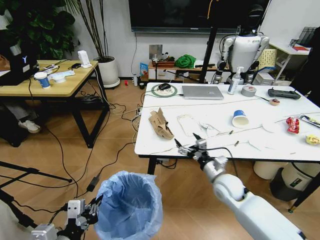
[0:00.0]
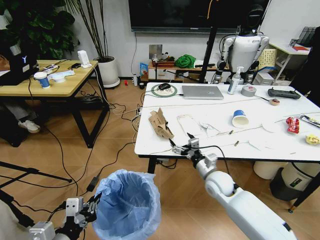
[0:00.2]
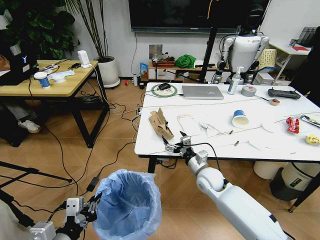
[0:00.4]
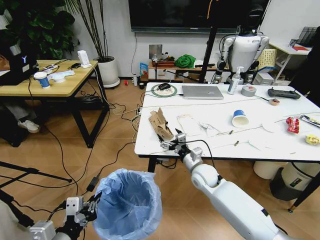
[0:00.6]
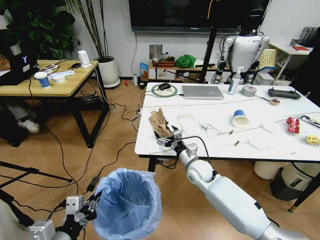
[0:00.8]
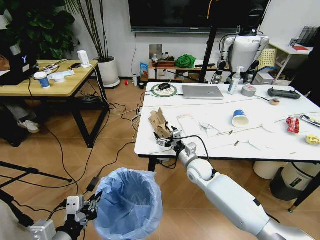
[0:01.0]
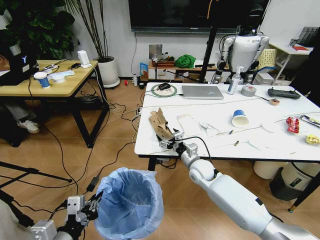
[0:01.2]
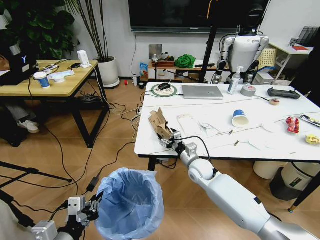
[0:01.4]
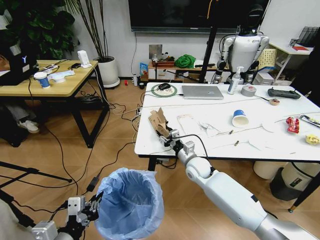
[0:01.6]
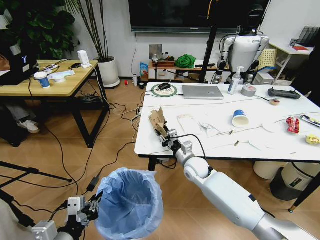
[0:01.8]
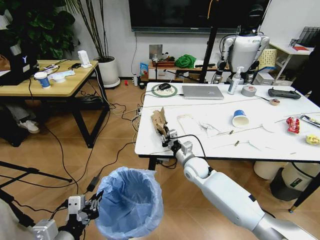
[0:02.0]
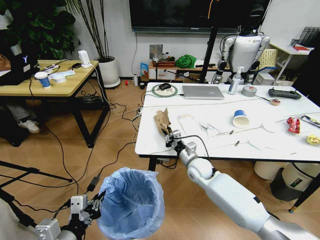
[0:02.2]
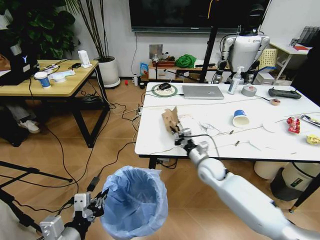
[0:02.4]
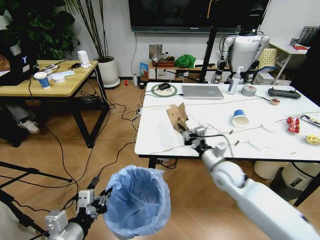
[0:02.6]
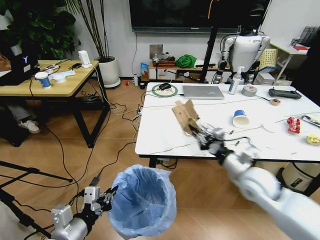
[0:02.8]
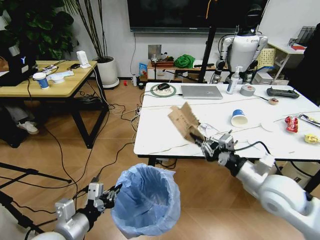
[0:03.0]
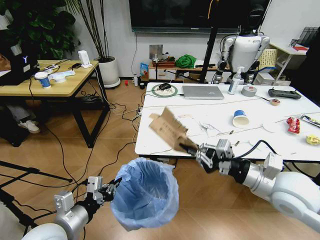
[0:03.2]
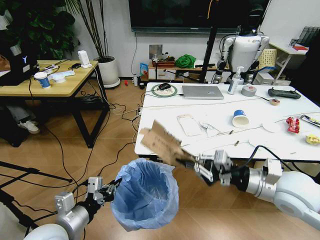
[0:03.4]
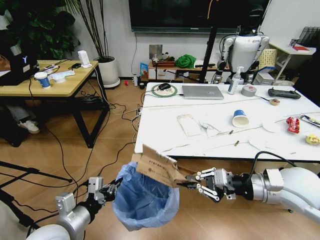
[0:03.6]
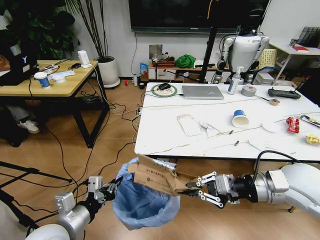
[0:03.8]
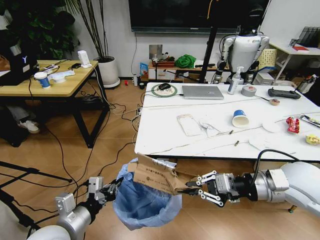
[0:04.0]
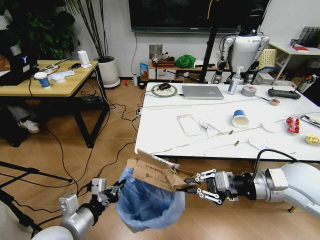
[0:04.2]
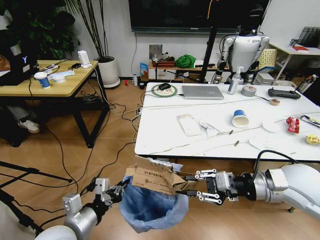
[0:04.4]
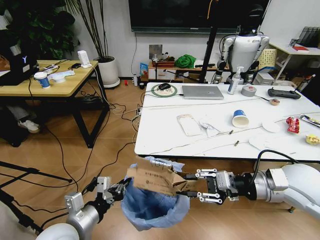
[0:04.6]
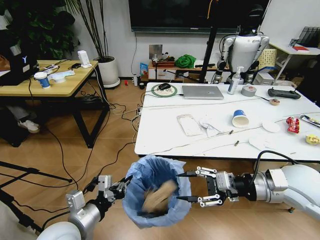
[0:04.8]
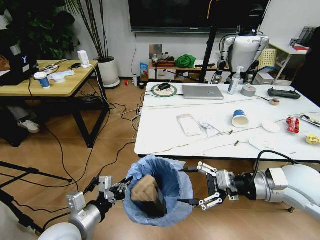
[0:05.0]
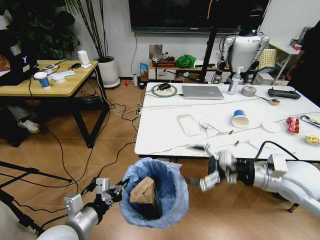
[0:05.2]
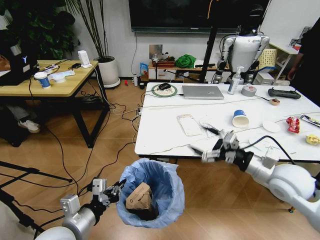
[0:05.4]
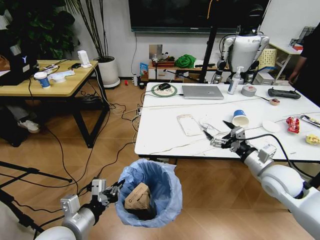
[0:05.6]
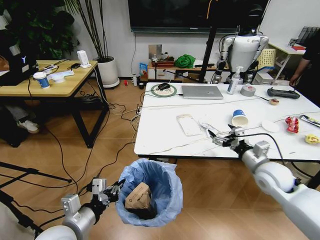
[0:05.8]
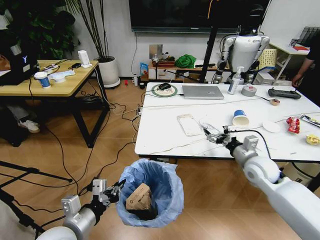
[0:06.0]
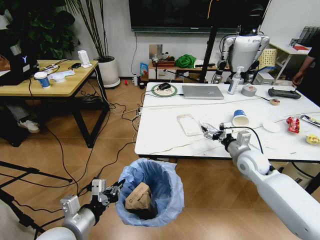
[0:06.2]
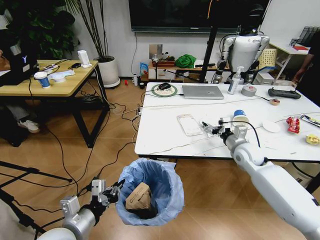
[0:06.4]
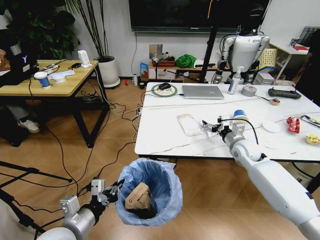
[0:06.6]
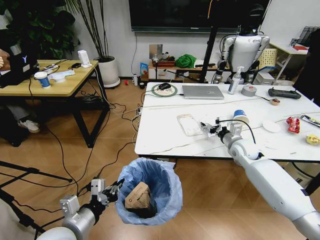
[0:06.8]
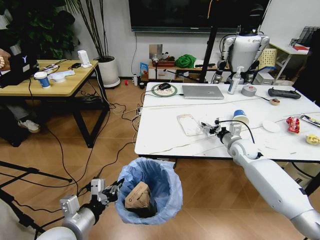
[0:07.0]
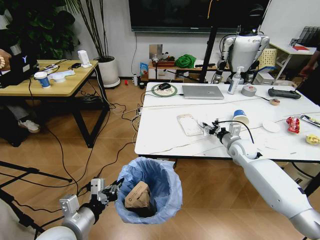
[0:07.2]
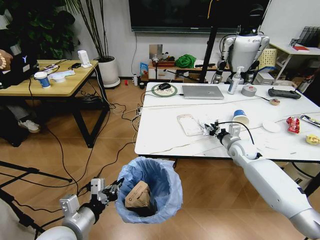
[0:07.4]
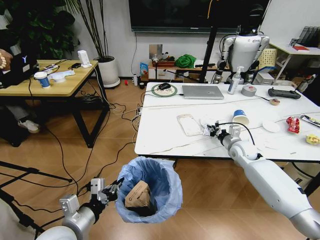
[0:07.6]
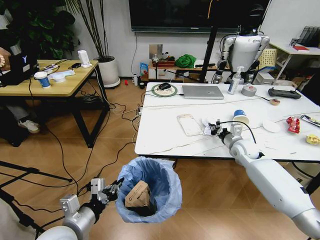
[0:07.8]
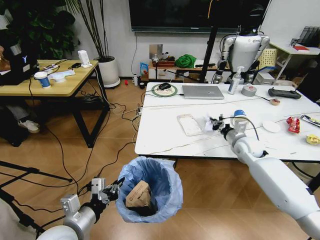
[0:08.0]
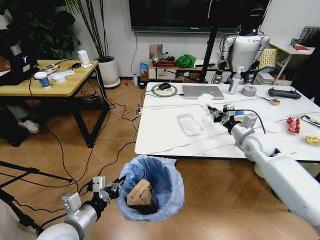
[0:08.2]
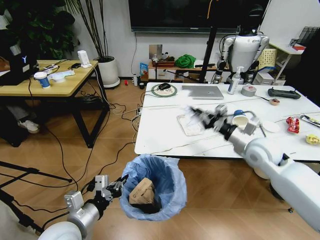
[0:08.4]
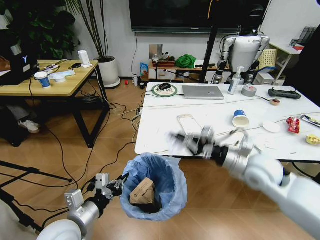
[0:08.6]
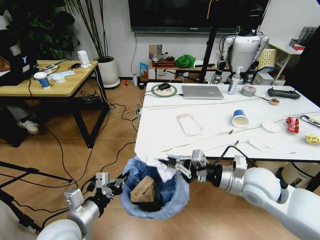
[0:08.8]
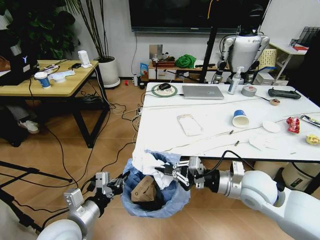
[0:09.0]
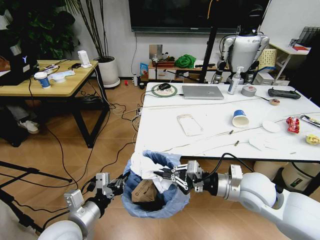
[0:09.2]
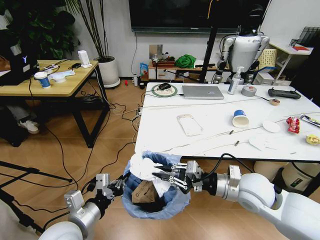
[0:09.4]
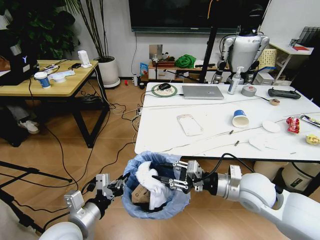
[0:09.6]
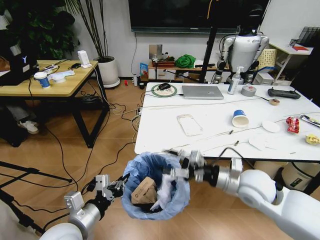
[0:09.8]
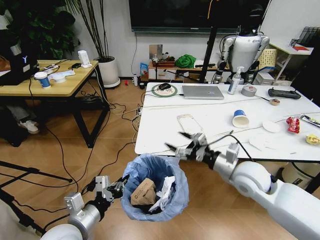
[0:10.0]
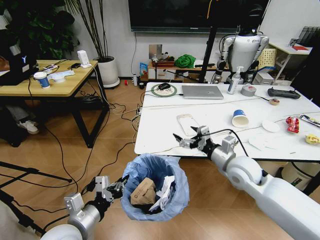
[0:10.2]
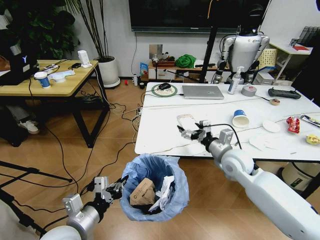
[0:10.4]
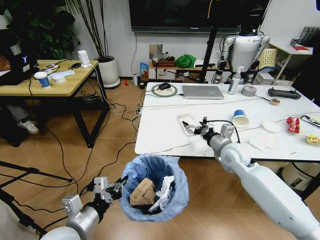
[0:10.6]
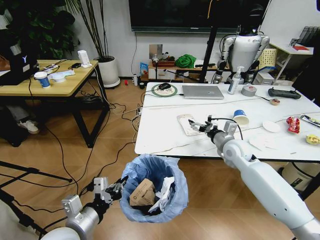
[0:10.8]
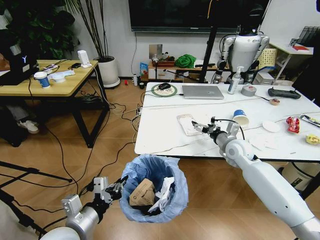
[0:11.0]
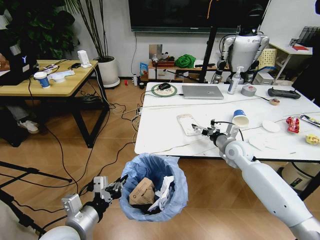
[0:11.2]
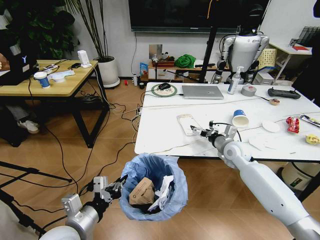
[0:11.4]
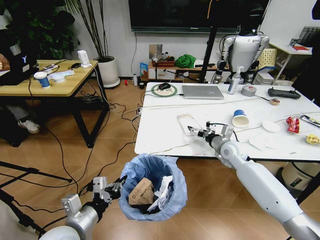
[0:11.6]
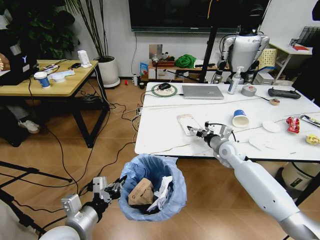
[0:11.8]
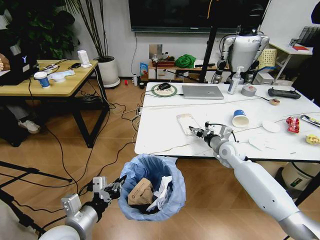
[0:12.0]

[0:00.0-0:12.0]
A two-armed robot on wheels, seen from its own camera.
Task of the whole recording: Pick up the trash bin and place the trash from the table into it.
0:00.0 to 0:01.6: The right gripper goes approximately 10 cm to the left and forward, and closes its fingers.
0:01.6 to 0:03.0: The right gripper travels backward, upward and to the right by some 30 cm, and closes its fingers, while the left gripper moves forward, roughly 5 cm.
0:04.4 to 0:06.0: The right gripper heads downward and forward, covering some 15 cm, and opens.
0:06.0 to 0:07.6: The right gripper heads forward, covering roughly 10 cm, and closes up.
0:07.6 to 0:09.0: The right gripper goes about 25 cm backward, upward and to the left.
0:09.0 to 0:10.4: The right gripper heads forward, covering approximately 10 cm, and opens up.
0:10.4 to 0:12.0: The right gripper travels forward and downward by about 10 cm, and closes.

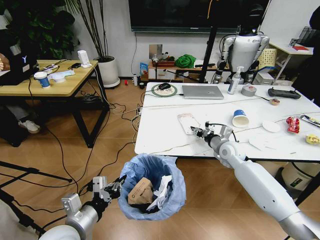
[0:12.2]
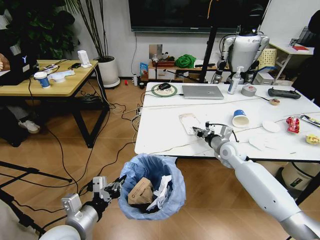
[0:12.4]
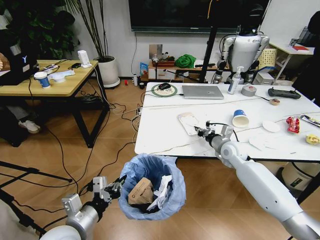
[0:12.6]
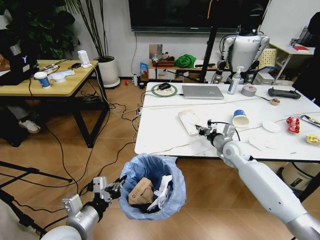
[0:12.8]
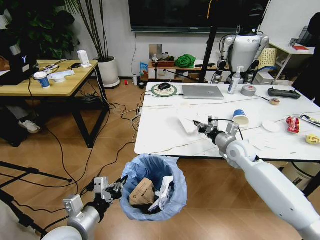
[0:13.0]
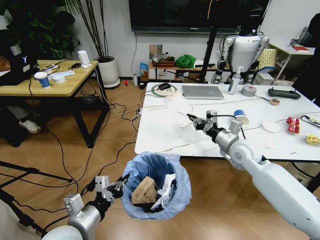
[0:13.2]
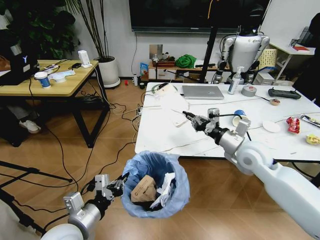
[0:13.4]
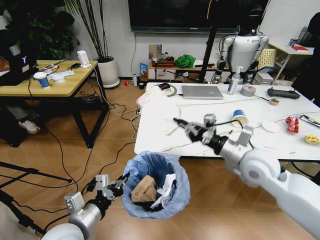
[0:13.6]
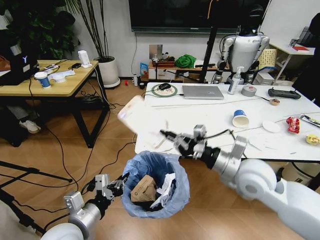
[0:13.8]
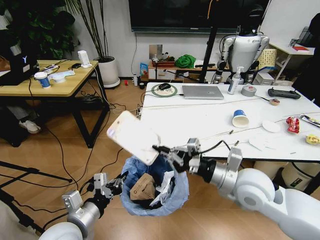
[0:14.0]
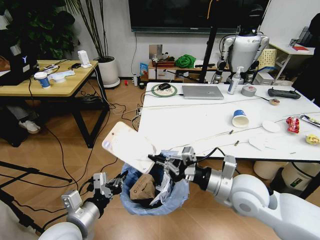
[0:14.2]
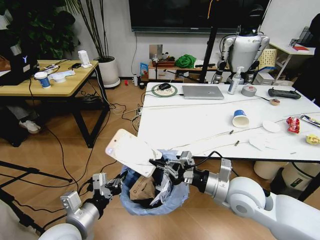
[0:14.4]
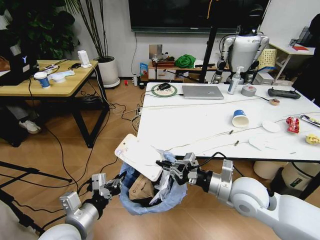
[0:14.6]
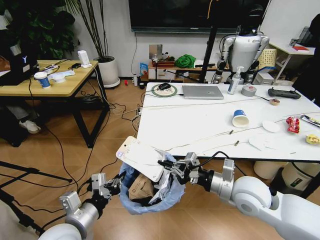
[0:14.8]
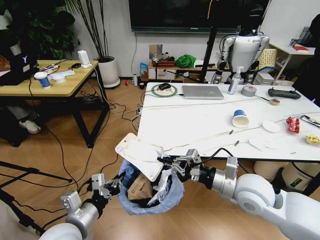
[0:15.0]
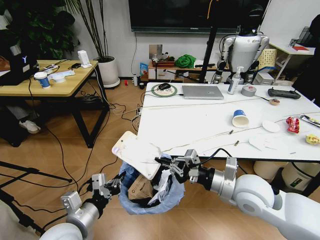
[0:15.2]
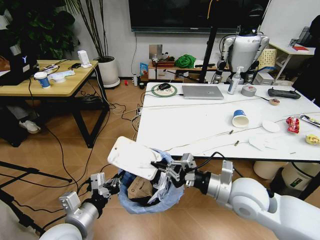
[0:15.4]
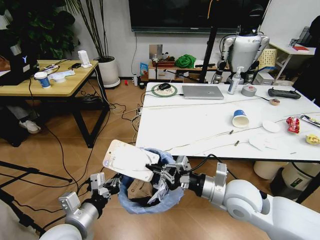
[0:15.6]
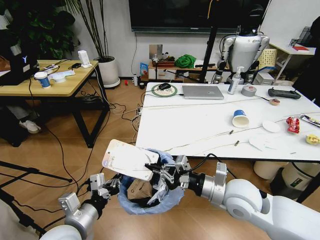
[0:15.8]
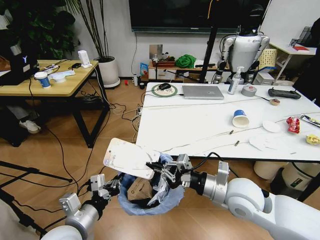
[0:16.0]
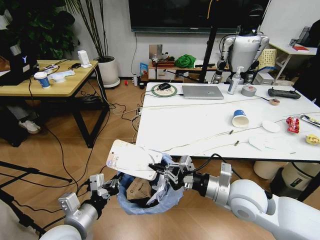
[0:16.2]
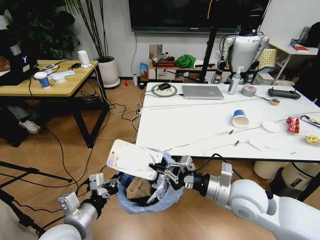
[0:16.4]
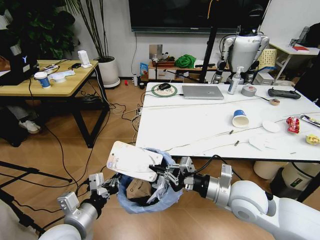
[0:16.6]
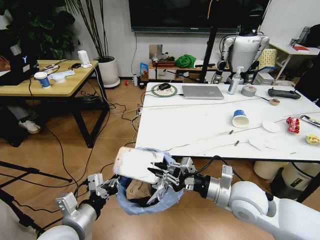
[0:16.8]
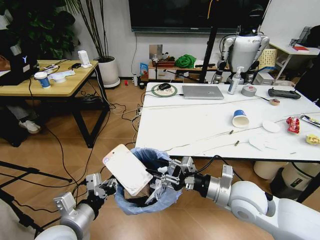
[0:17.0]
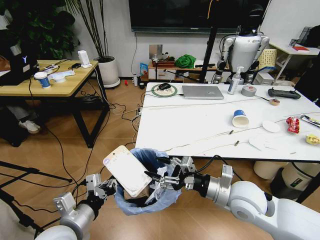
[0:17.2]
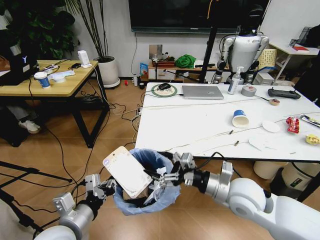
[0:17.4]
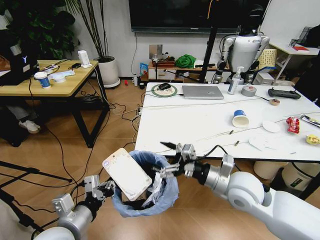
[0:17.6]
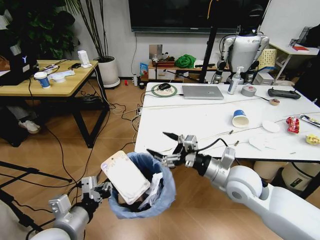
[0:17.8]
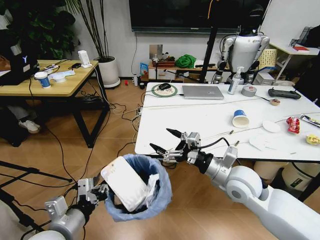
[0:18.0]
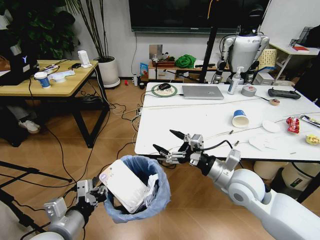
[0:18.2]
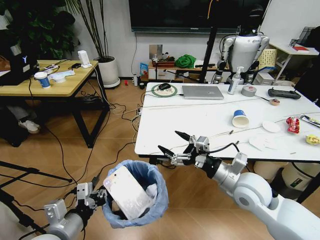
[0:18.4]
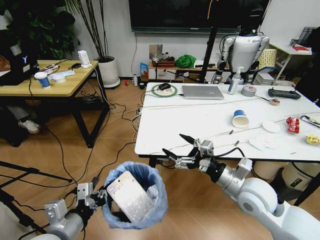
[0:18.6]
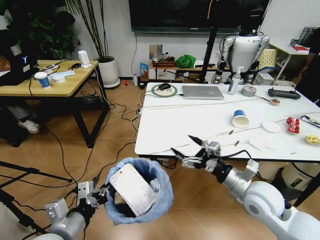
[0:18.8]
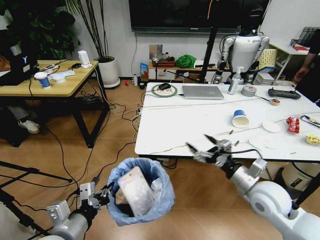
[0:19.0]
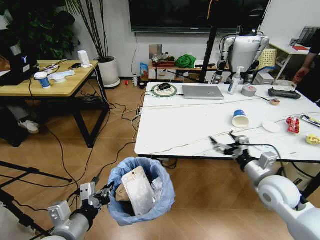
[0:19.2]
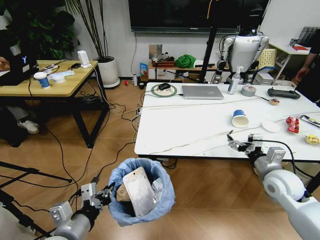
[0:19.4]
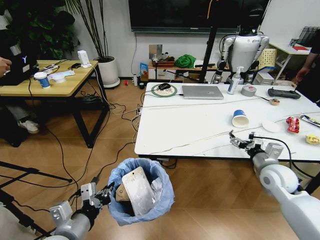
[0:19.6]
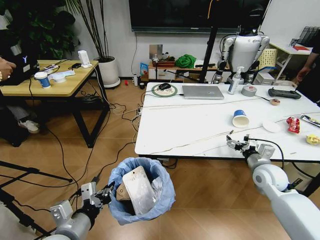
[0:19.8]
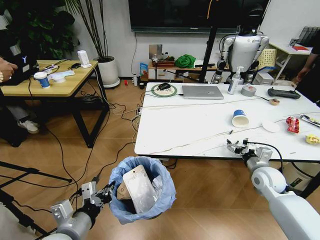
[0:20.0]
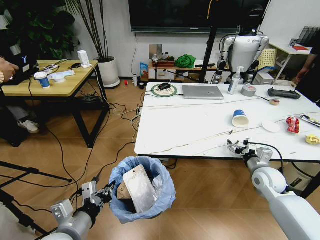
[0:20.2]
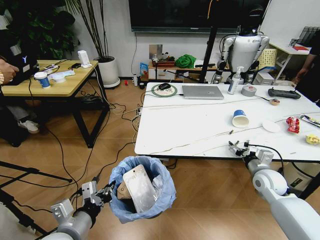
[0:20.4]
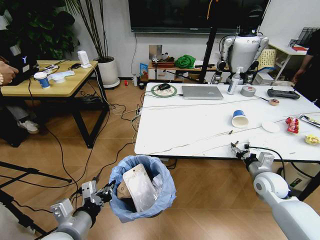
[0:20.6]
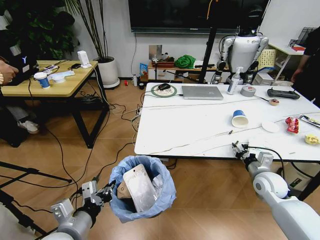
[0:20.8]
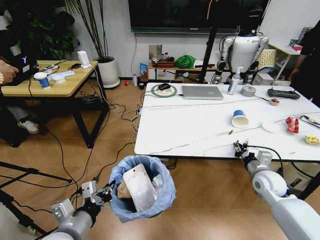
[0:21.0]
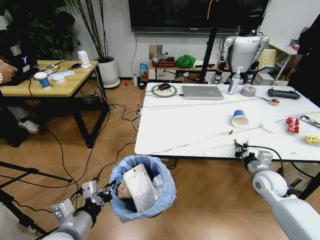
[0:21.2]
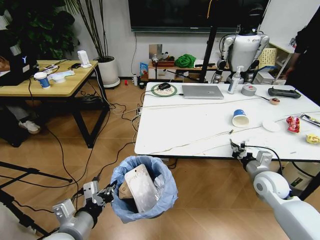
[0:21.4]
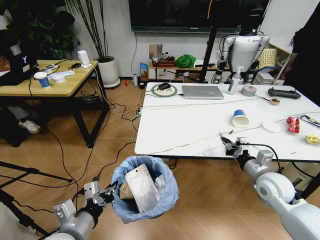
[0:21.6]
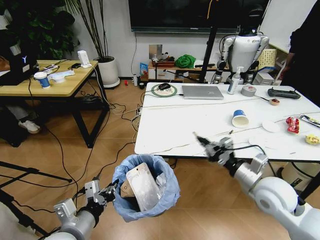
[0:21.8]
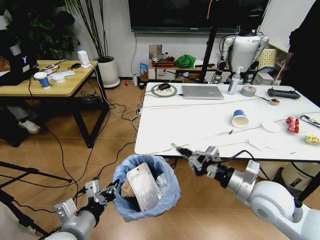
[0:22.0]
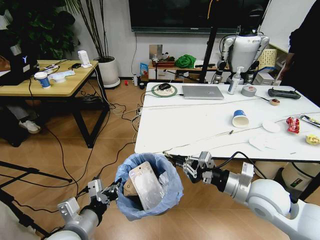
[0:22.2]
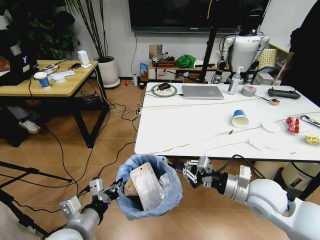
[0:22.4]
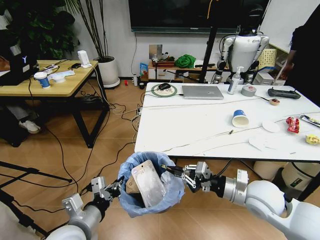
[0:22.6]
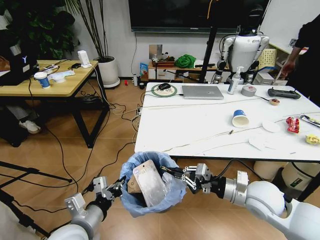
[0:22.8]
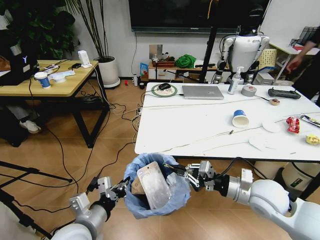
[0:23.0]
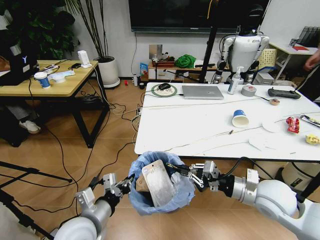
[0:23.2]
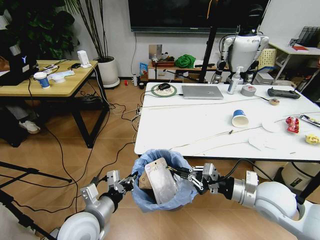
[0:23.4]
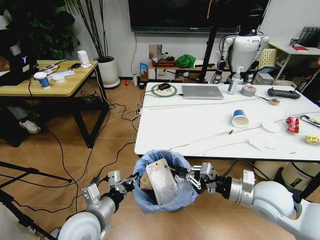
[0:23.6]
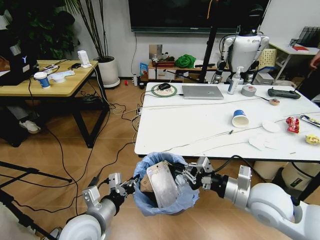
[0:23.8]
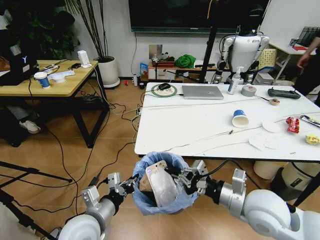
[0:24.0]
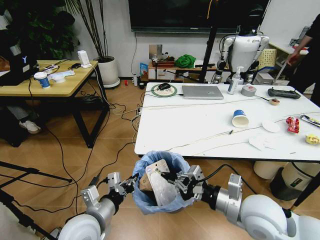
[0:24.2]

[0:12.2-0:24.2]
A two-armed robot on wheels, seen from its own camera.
Task of the whole recording: Pick up the trash bin and place the trash from the table into it.
0:12.2 to 0:13.8: The right gripper shifts approximately 20 cm backward and upward.
0:15.2 to 0:16.6: The grippers stay close to where they were, moving slightly.
0:16.6 to 0:18.2: The right gripper opens its fingers.
0:18.2 to 0:19.8: The right gripper moves to the right, downward and forward, about 15 cm.
0:19.8 to 0:21.2: The right gripper closes its fingers.
0:21.2 to 0:22.6: The right gripper travels to the left, upward and backward by some 15 cm.
0:22.6 to 0:24.2: The right gripper travels backward by about 5 cm.
